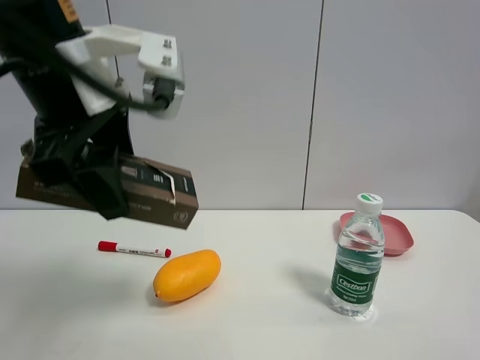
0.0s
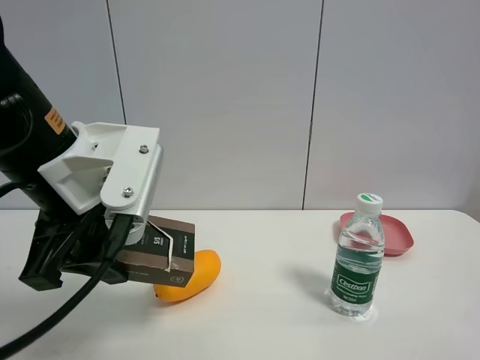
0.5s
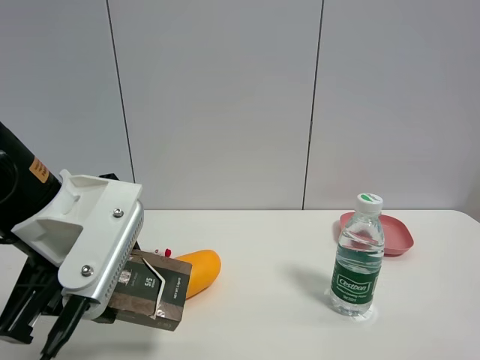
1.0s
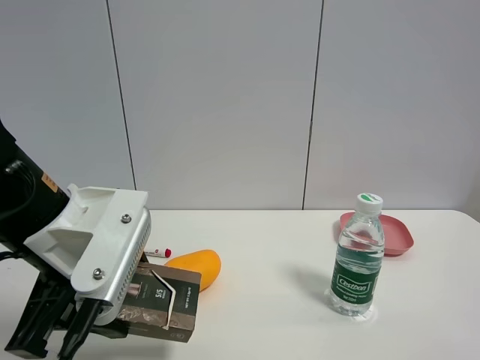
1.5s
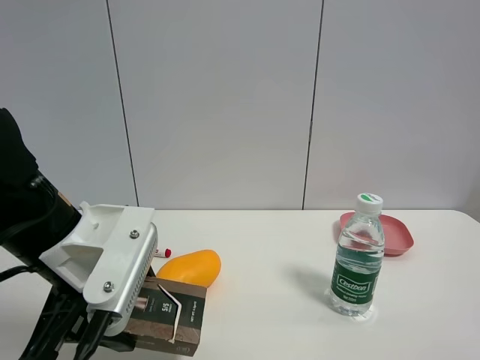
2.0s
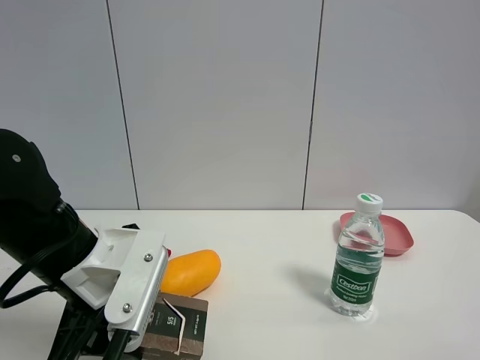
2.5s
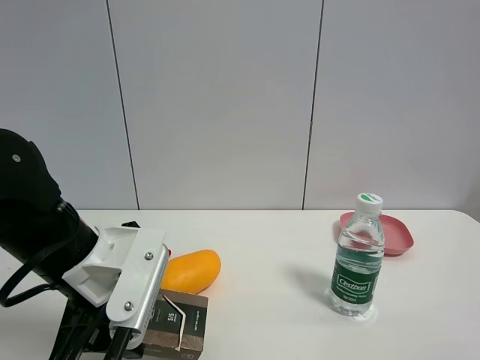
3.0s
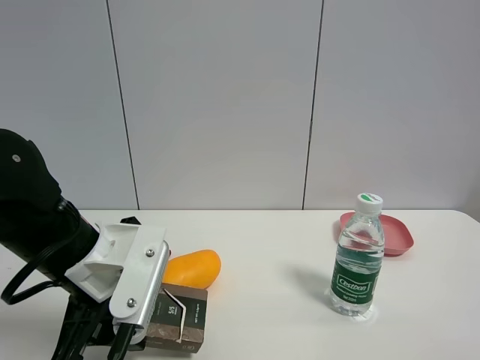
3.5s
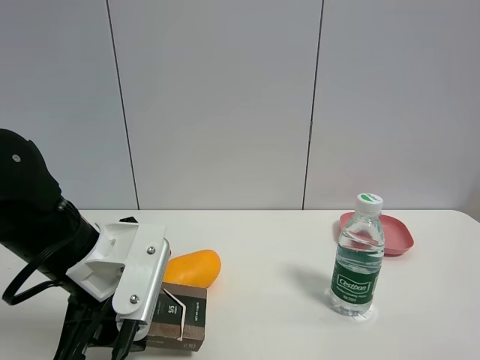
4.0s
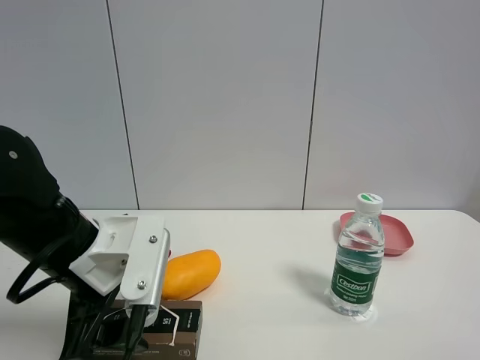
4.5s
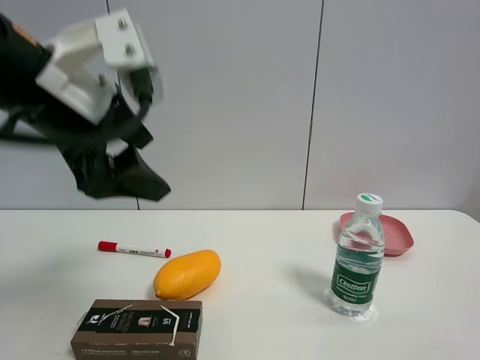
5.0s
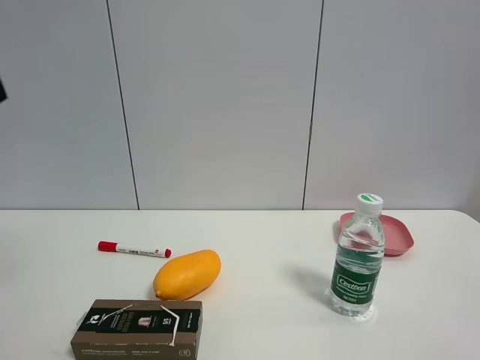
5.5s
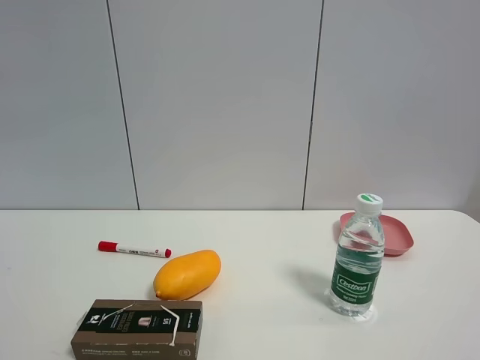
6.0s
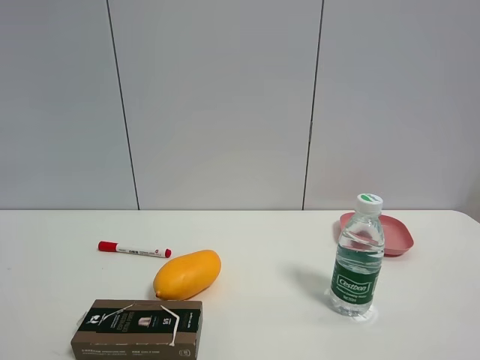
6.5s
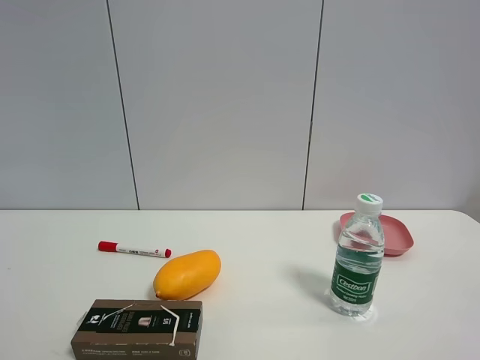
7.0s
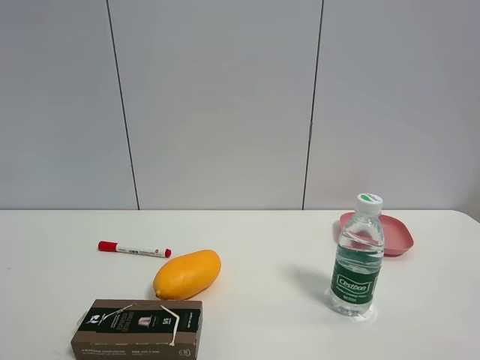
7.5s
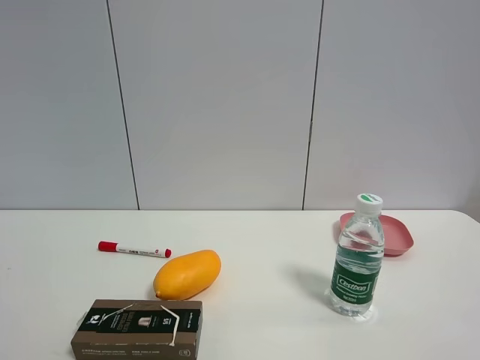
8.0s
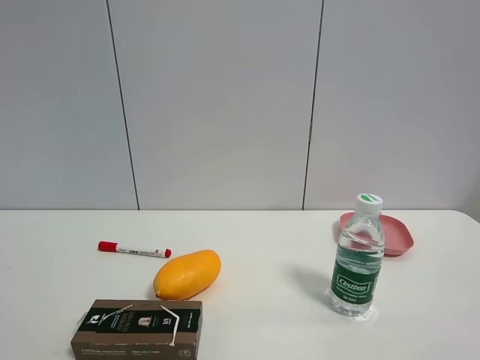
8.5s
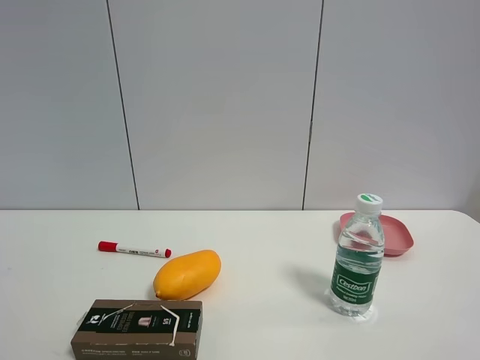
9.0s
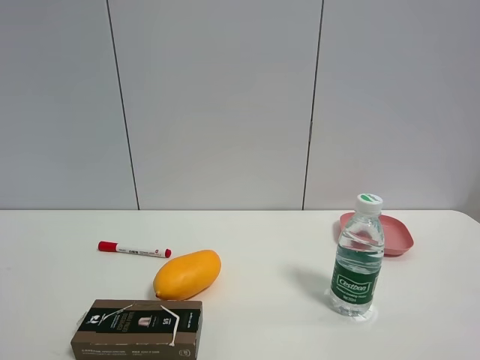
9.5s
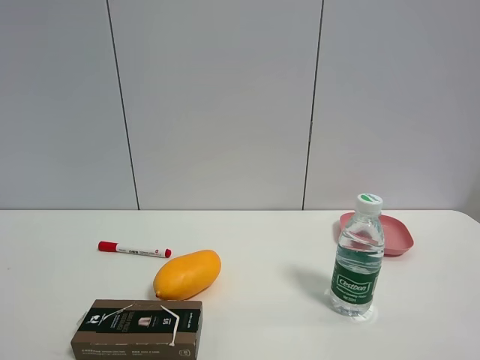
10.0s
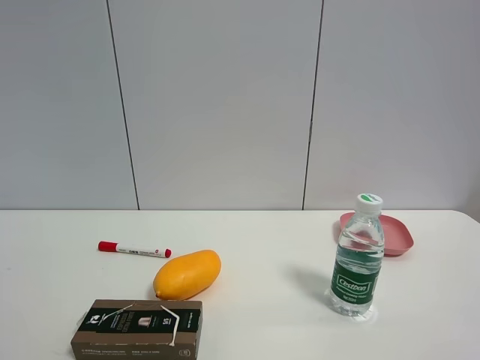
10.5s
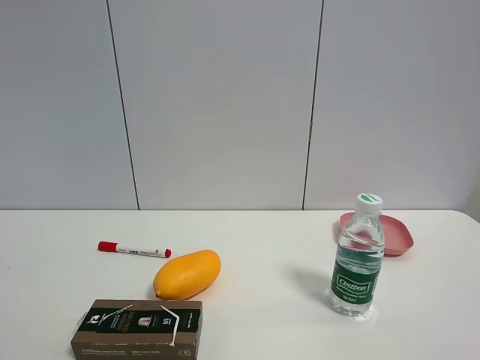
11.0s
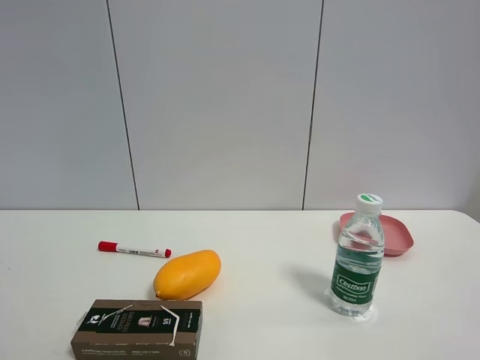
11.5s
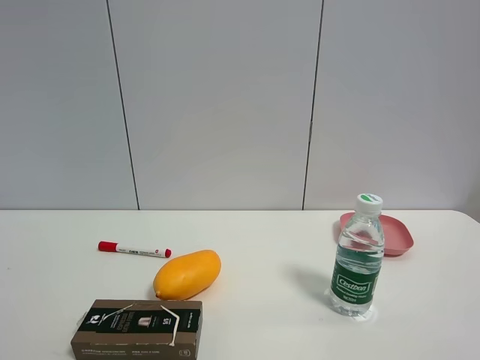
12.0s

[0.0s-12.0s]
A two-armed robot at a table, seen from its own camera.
Task of the whole recording: the gripper move the object.
Step, 0.0s to 4.5s: Place the brown box on the table with the left gripper.
0.0s to 2.0s: The left gripper shifts roughly 15 cm downward.
2.0s to 4.0s: The grippers make only small movements.
4.0s to 6.0s: The left gripper shifts roughly 40 cm upward, backward and to the left, and opens.
8.0s to 12.0s: Both grippers stay about where they are.

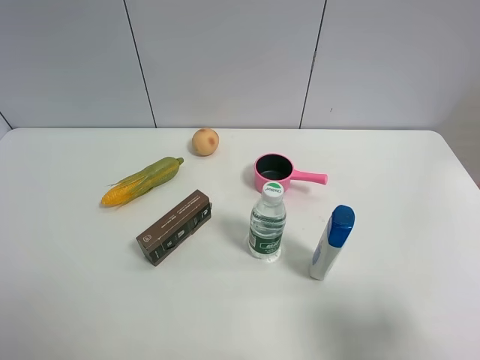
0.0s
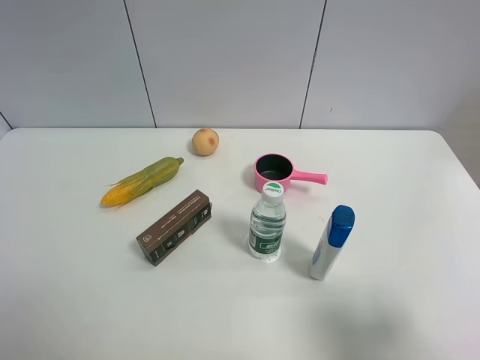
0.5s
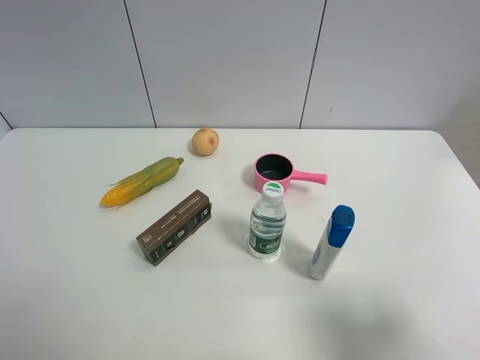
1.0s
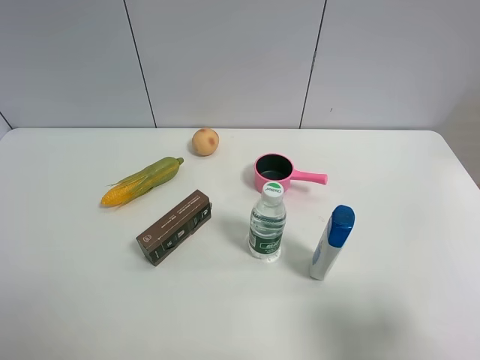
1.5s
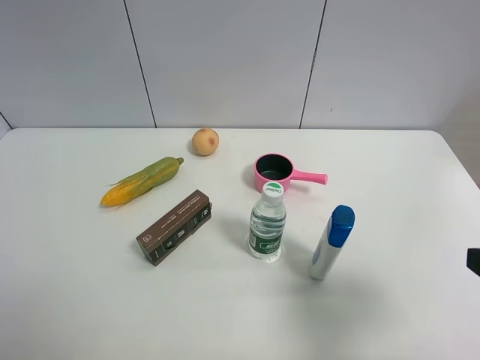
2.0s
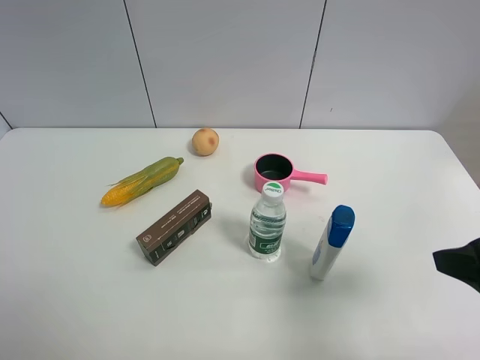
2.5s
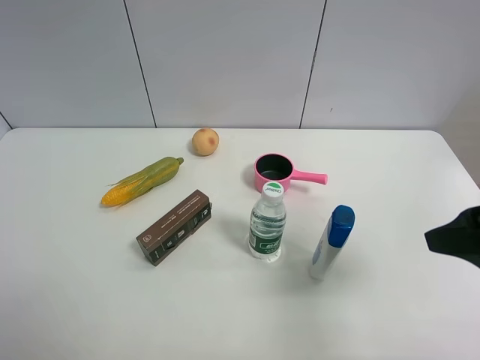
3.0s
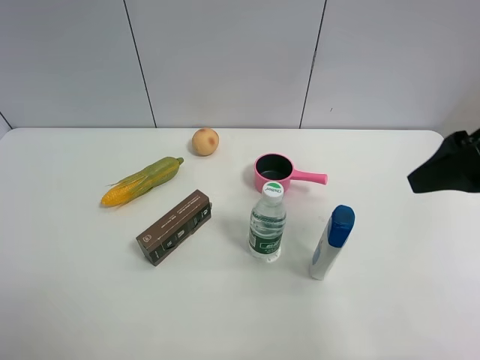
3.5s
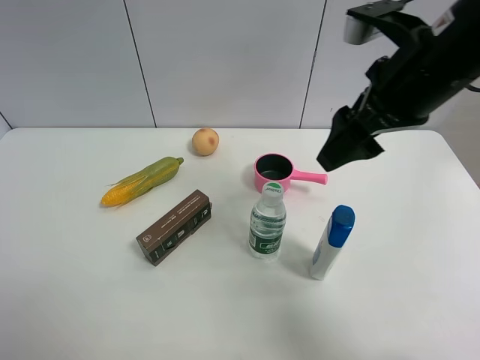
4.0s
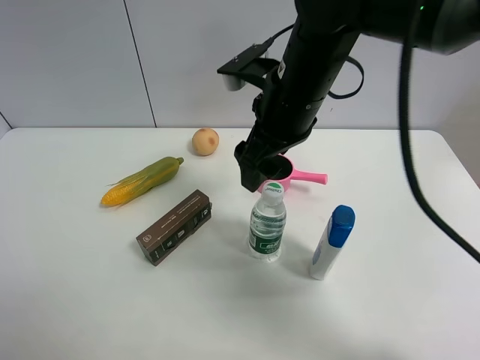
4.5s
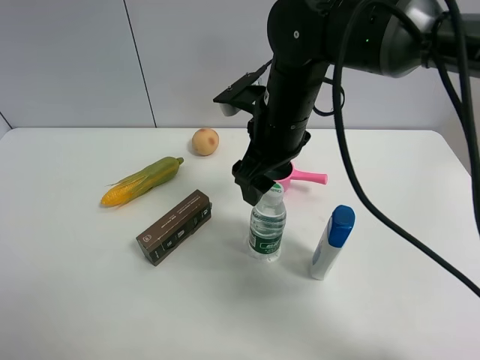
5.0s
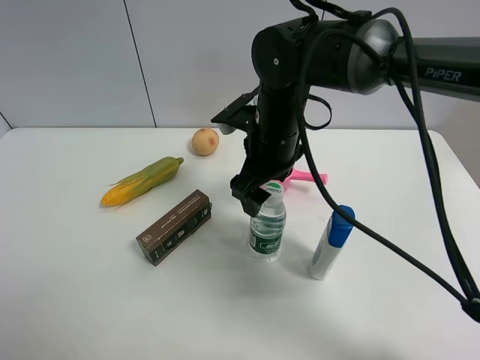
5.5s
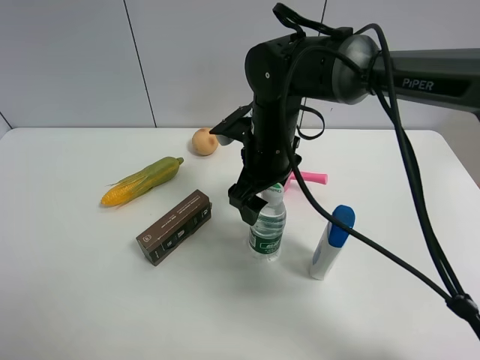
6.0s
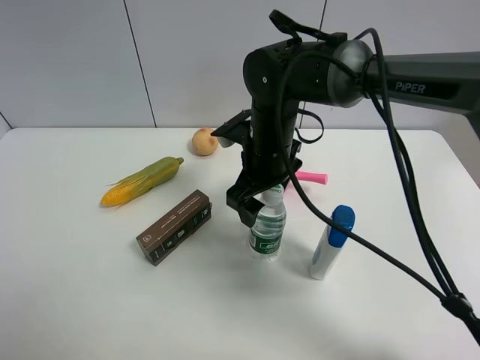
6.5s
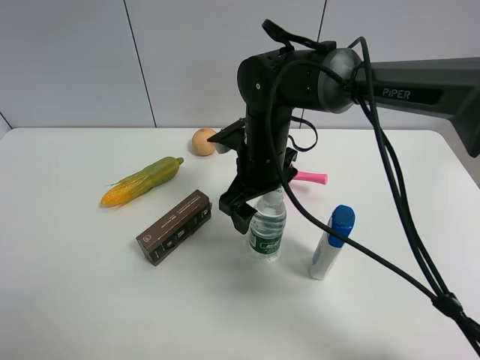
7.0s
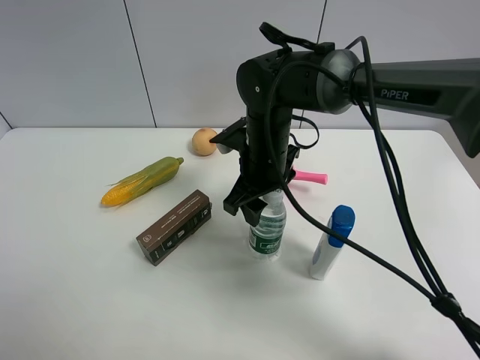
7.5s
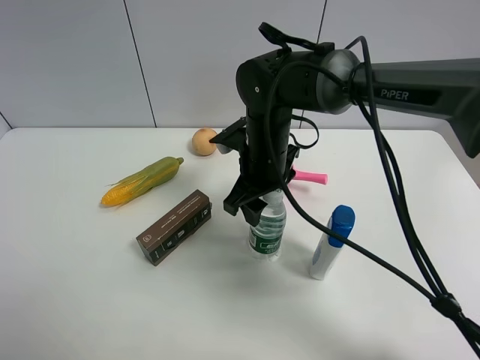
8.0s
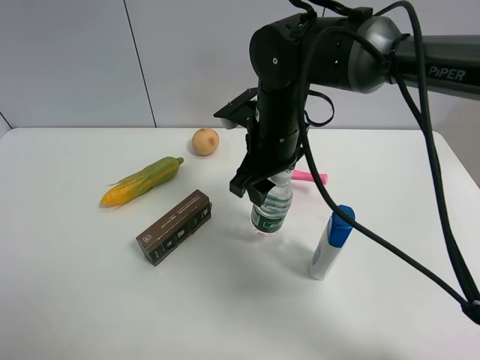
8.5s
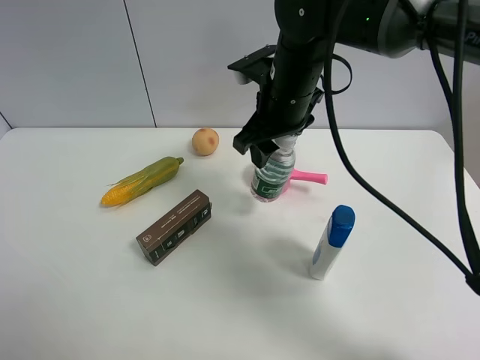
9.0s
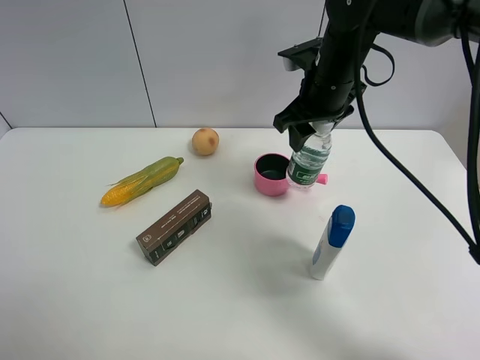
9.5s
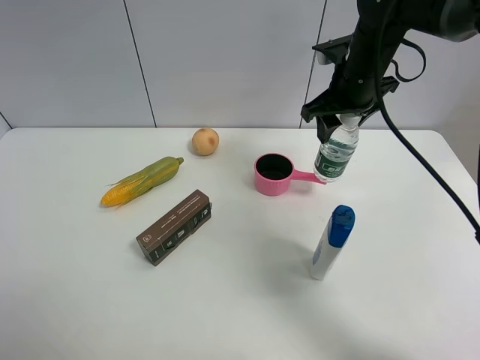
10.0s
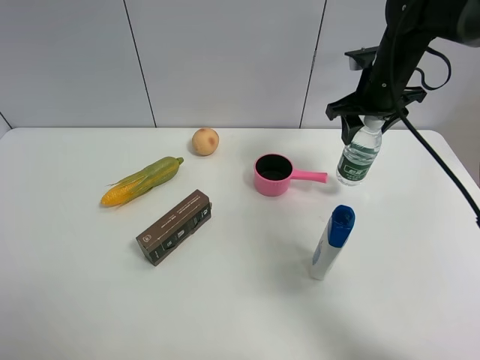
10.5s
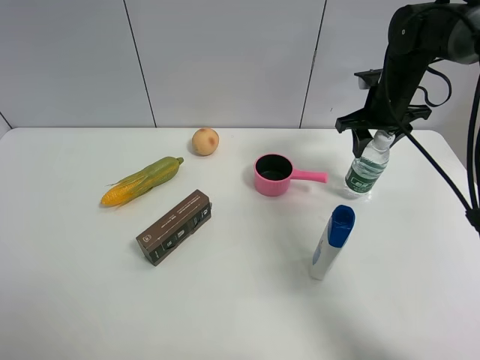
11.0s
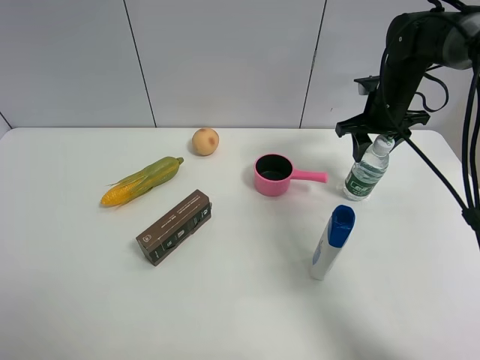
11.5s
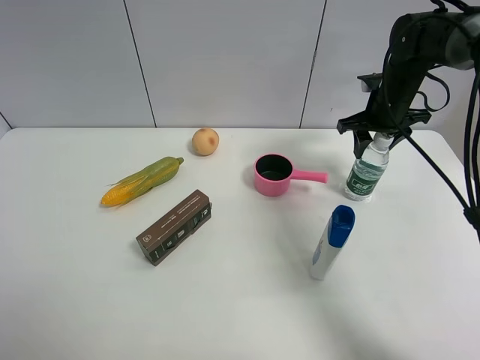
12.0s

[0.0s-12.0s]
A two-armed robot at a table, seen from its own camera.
Task of the whole recording: the gripper move the object.
Step, 0.0s to 7.5s: Grasp the YiBao mineral water with the right gripper.
0.0s to 2.0s: The right gripper is displaced forward by some 5 cm.
2.0s to 4.0s: The right gripper moves forward and to the left, approximately 25 cm.
4.0s to 6.0s: The right gripper shifts roughly 20 cm downward, to the left and forward.
6.0s to 8.0s: The right gripper closes up.
8.0s to 10.0s: The right gripper moves to the right, upward and forward, some 20 cm.
10.0s to 12.0s: The right gripper travels to the right and downward by some 10 cm.

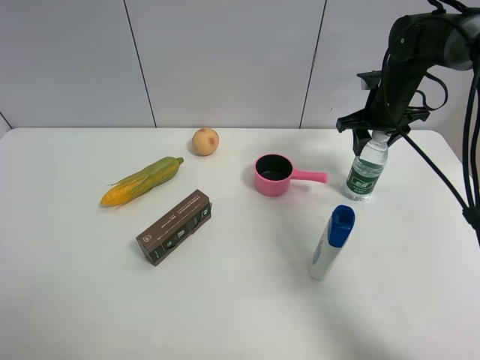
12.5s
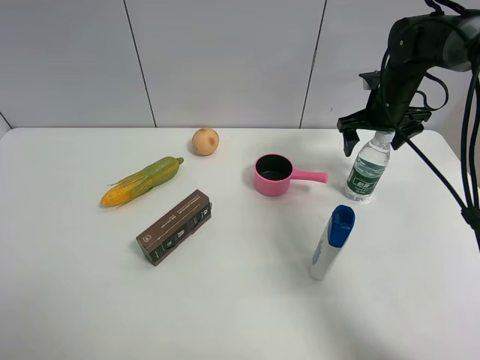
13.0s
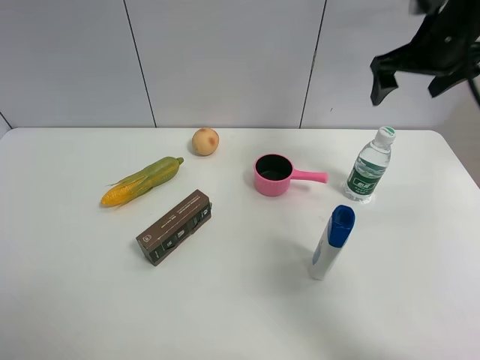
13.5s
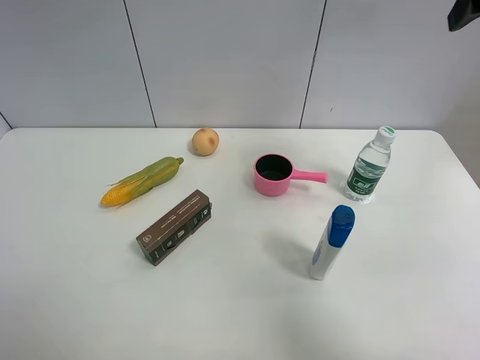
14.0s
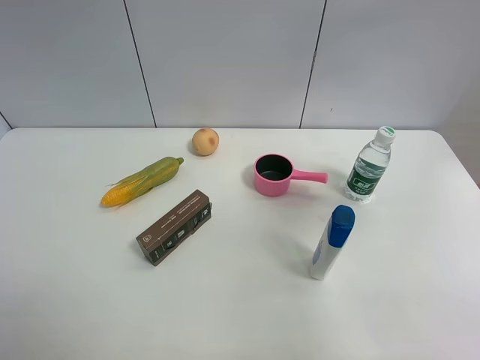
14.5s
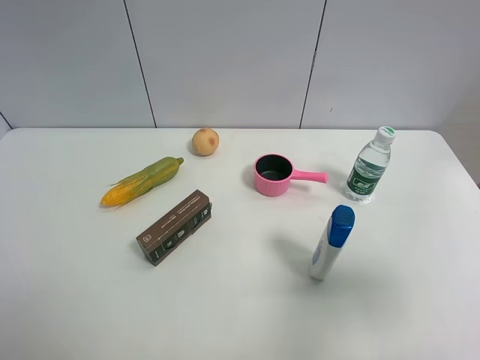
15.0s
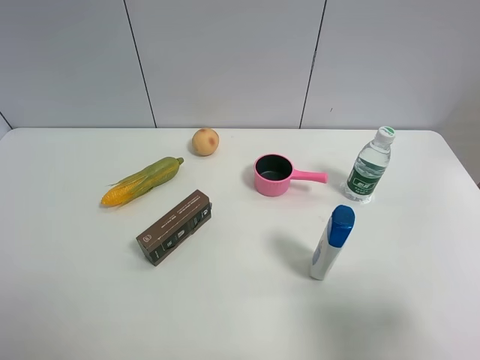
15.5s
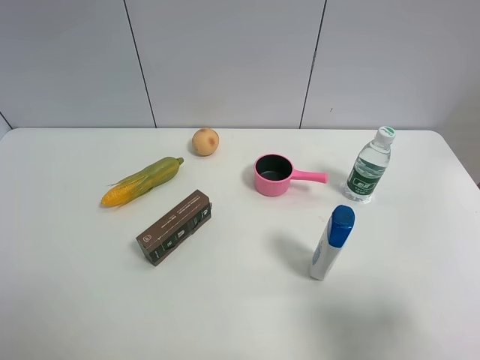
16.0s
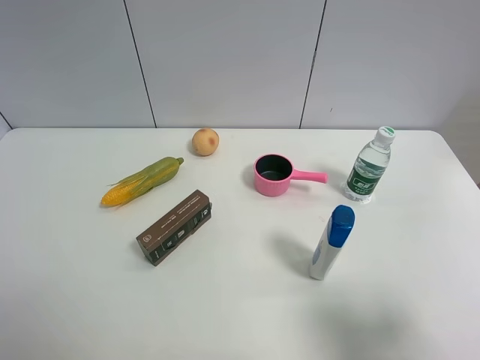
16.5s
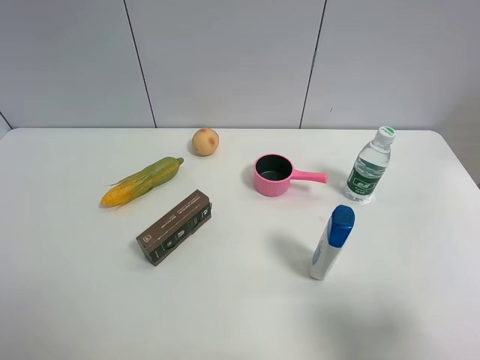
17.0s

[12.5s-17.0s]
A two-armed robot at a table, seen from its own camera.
Task of the whole recording: the gripper move the object.
12.5s to 14.5s: The right gripper goes approximately 30 cm backward and upward, and opens its fingers.
14.5s to 17.0s: The right gripper goes roughly 25 cm backward and downward.
